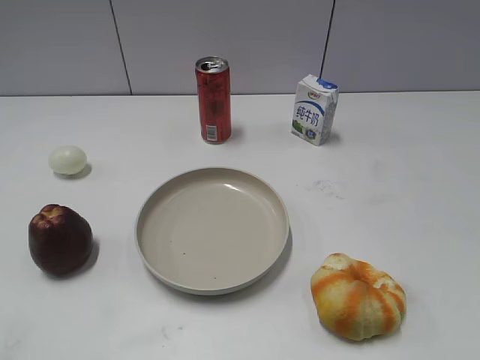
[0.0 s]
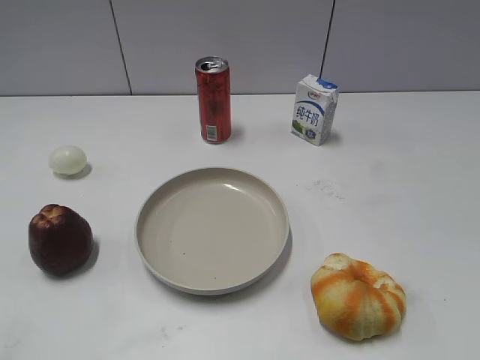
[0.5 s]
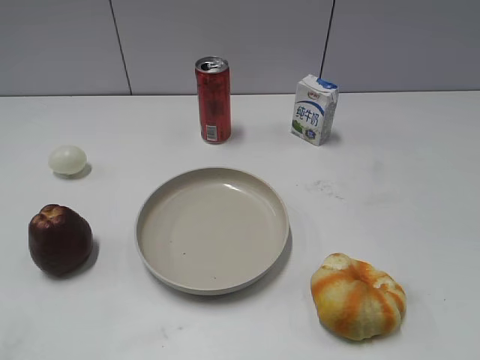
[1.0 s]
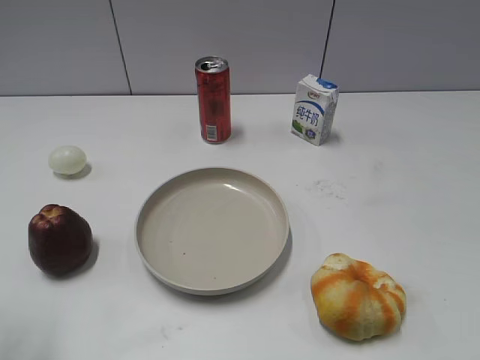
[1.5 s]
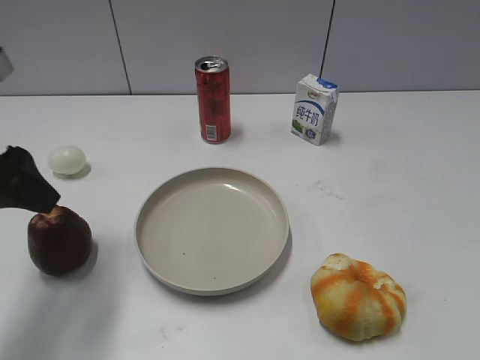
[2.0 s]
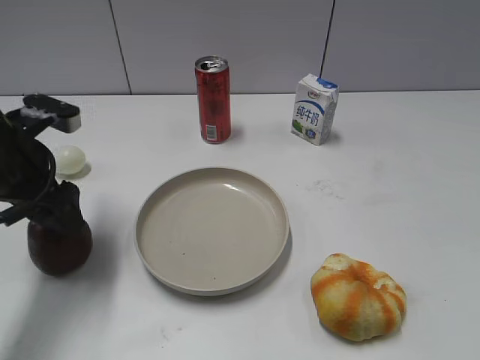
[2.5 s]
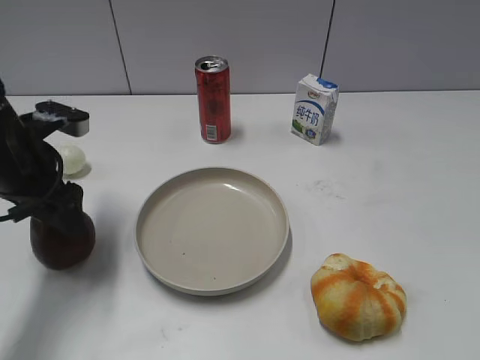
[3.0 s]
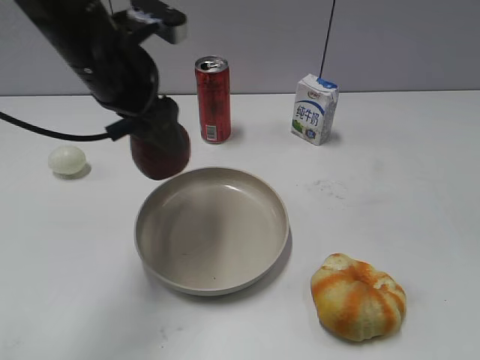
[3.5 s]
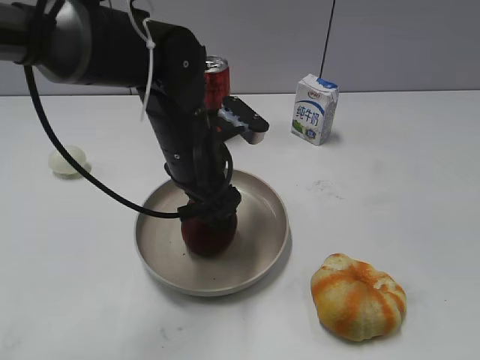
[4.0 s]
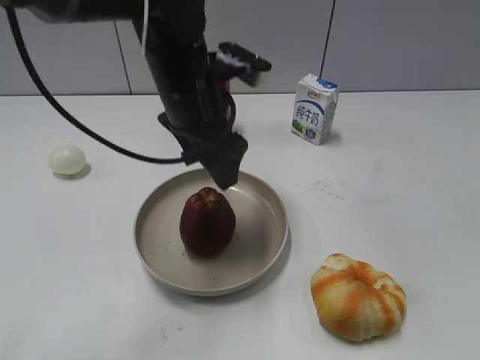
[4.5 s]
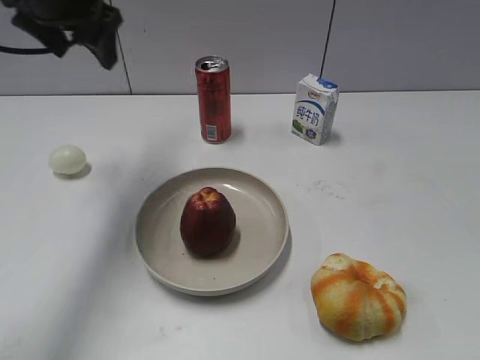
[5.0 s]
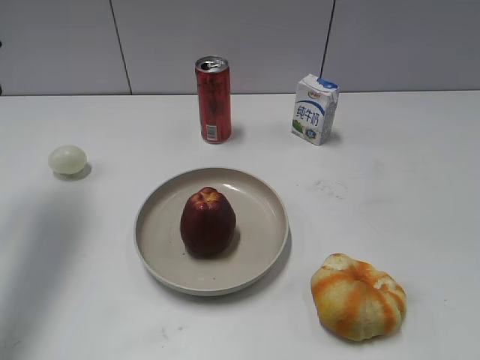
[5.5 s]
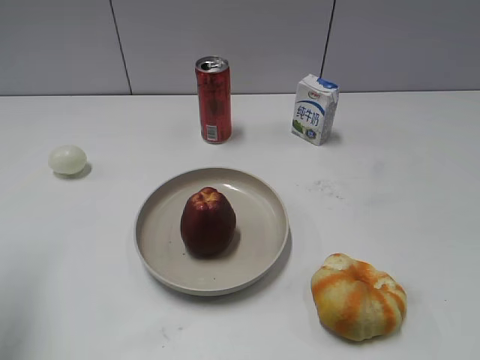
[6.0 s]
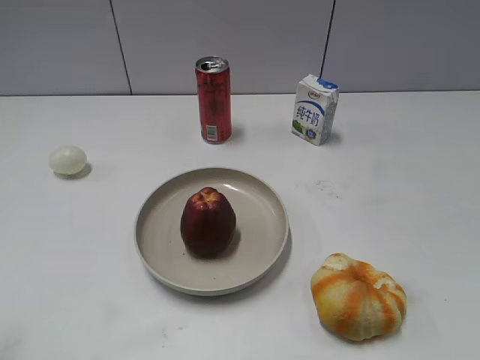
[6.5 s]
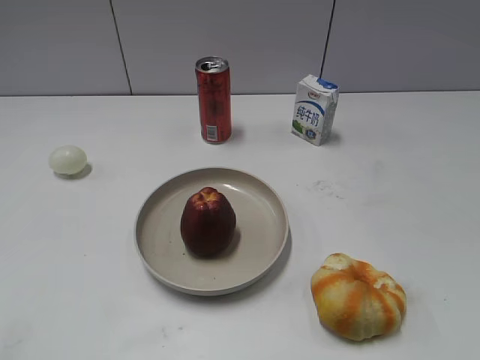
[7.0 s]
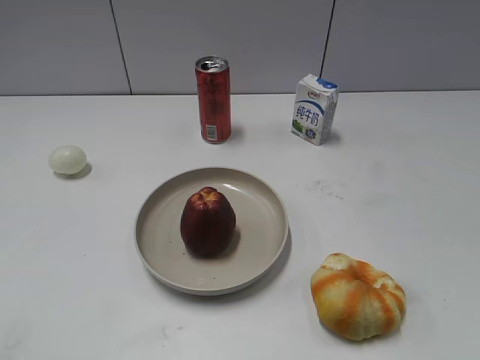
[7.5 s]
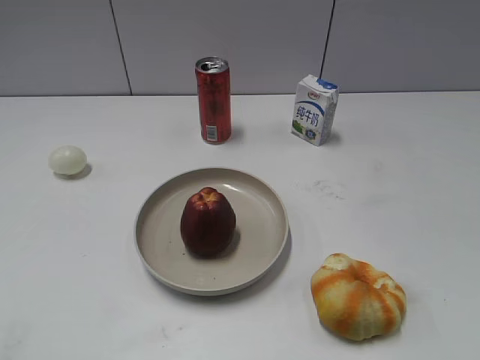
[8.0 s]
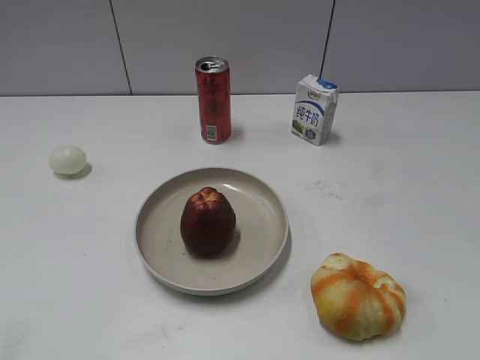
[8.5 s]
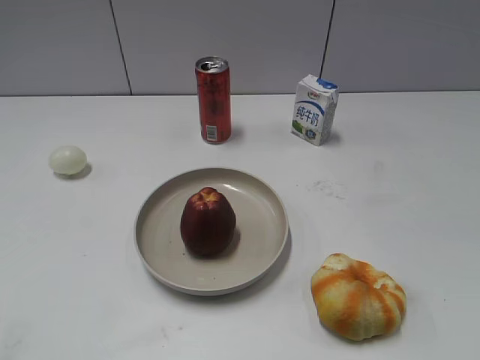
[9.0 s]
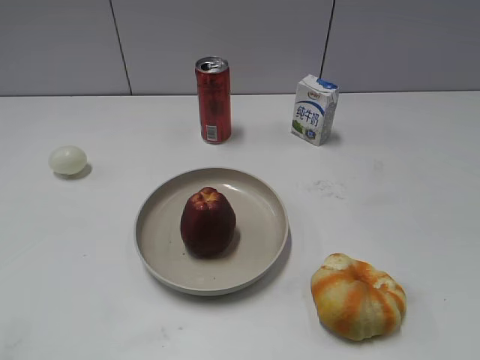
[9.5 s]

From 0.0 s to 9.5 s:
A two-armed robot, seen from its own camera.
Step, from 1.0 s to 2.5 s: Grasp the apple with left gripper.
Step, from 3.0 s to 4.5 s: Place the apple on the plate with left gripper.
From 2.0 s to 4.0 s: The left gripper is displaced to the right, downward and forward by about 25 cm, and closes its fingers.
From 4.0 s to 5.5 s: The left gripper heads to the left and upward, covering approximately 30 cm, and opens, then closes once more.
From 5.5 s to 7.5 s: The left gripper is displaced backward by some 35 cm.
From 7.5 s to 9.5 s: The two grippers keep their place.

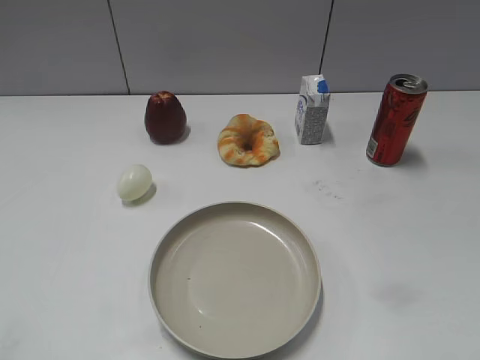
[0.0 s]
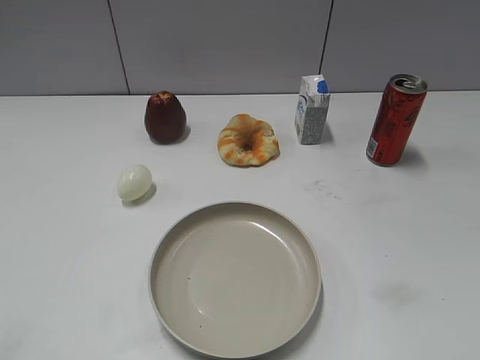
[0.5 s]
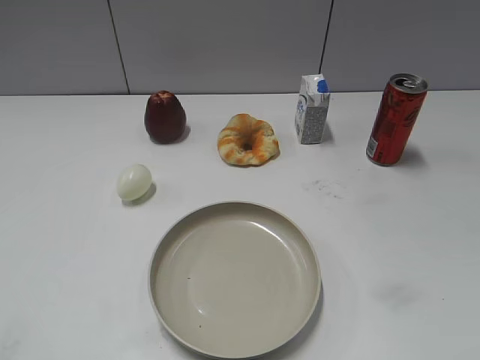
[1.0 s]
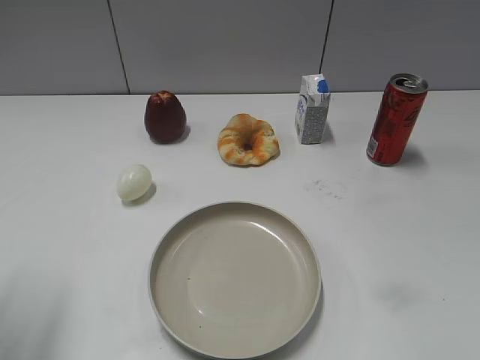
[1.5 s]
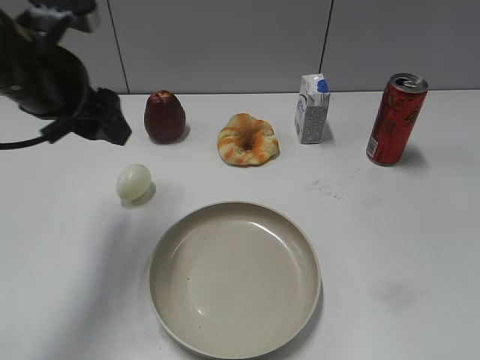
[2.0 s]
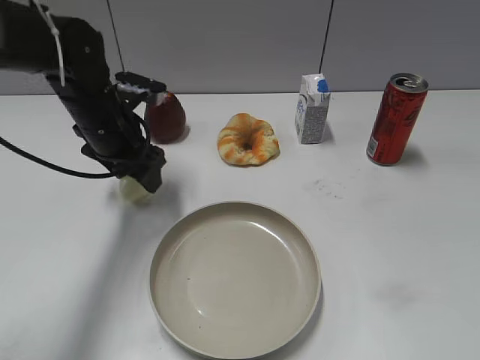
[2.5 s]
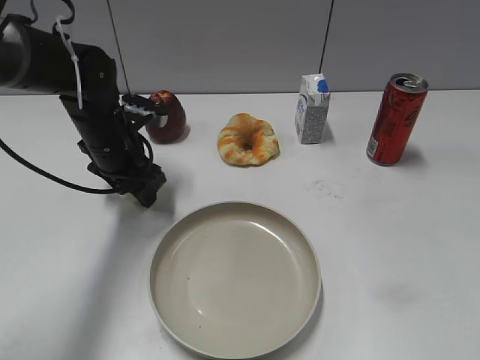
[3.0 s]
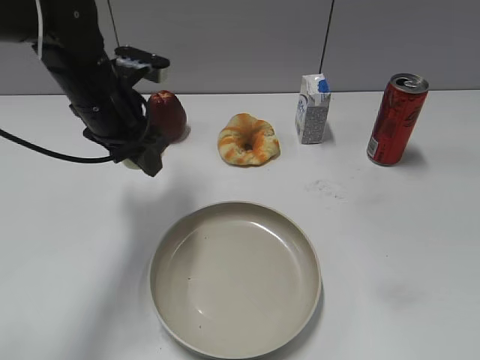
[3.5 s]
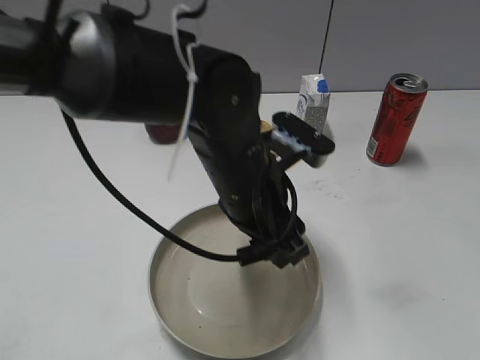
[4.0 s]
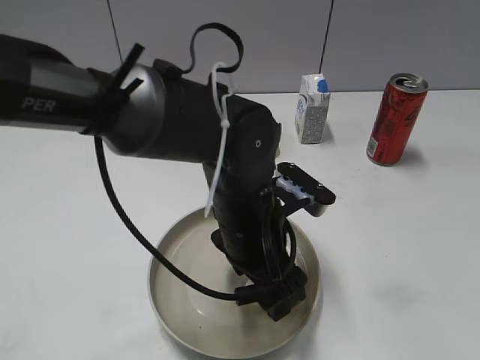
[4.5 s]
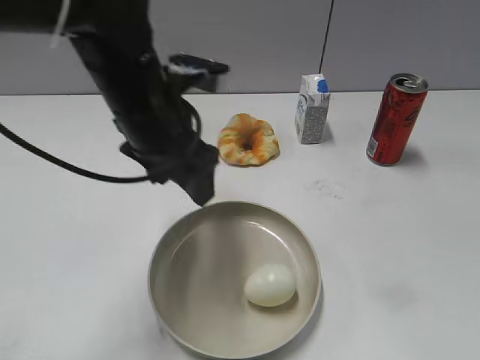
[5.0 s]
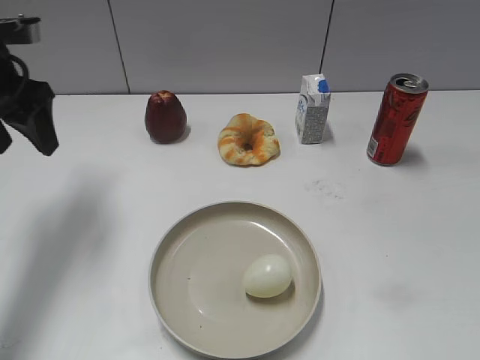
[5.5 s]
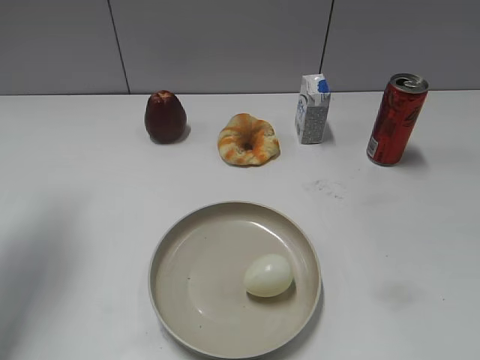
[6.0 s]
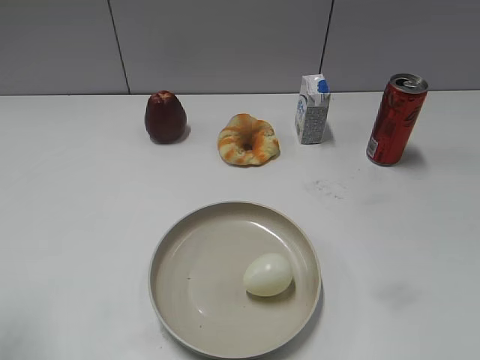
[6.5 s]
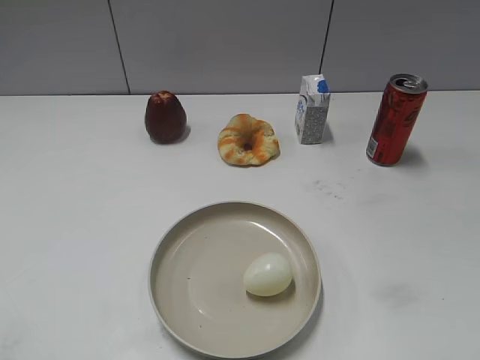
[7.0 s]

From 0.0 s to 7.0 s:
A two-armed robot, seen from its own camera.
Step, from 1.0 s to 3.0 s: Grasp the egg with left gripper.
Step, from 3.5 s to 4.5 s: Place the egg on the plate with left gripper.
From 2.0 s to 3.5 s: The left gripper travels to the right and downward by some 5 cm, and closes up.
From 3.5 s to 5.0 s: The left gripper is displaced backward by approximately 5 cm, reaches some 15 cm to the right, then returns, and opens up.
From 5.0 s to 7.0 s: The left gripper heads backward and to the left, covering approximately 35 cm.

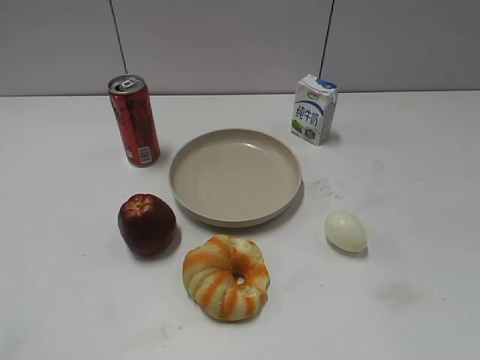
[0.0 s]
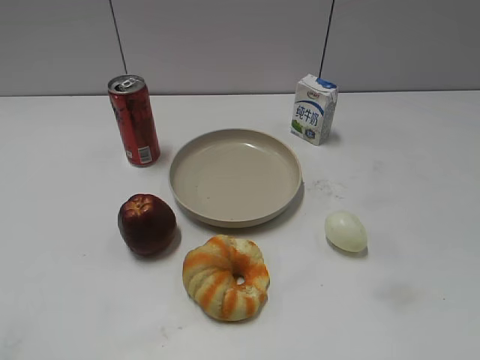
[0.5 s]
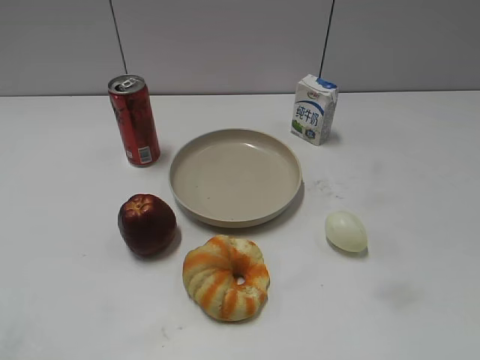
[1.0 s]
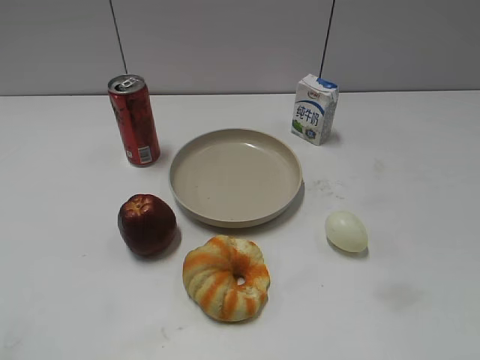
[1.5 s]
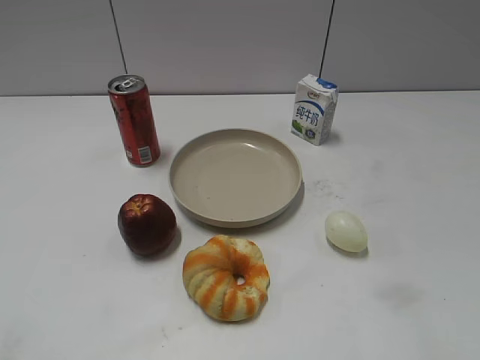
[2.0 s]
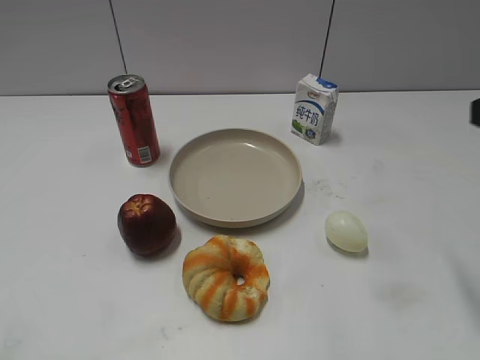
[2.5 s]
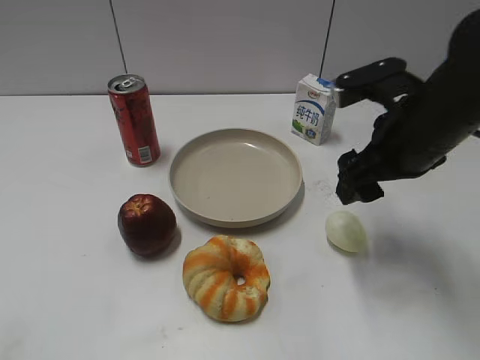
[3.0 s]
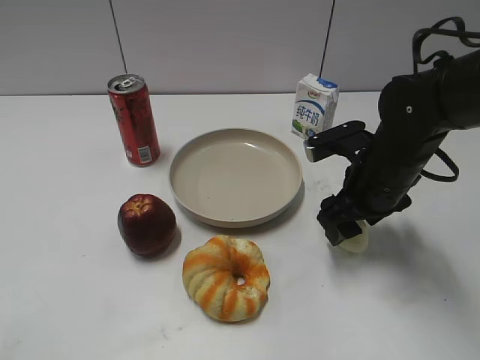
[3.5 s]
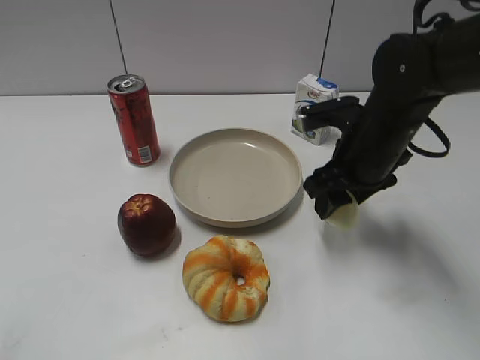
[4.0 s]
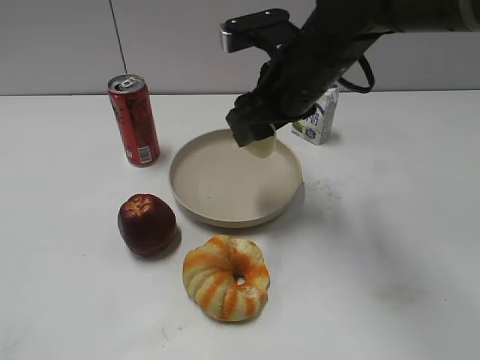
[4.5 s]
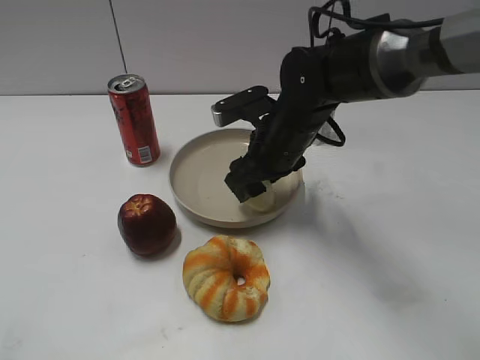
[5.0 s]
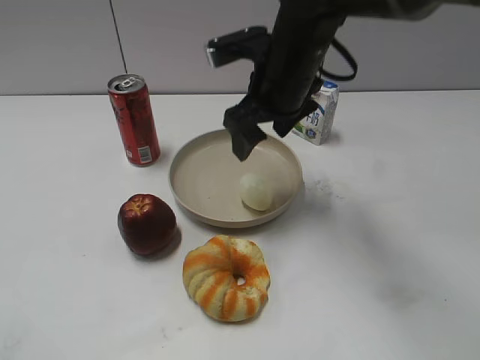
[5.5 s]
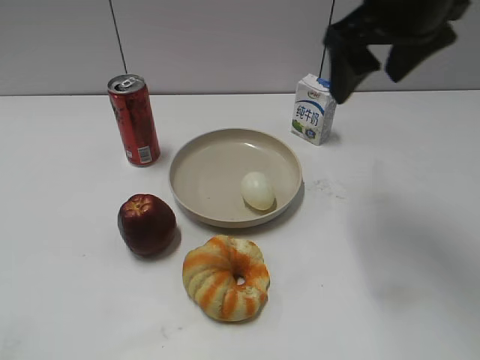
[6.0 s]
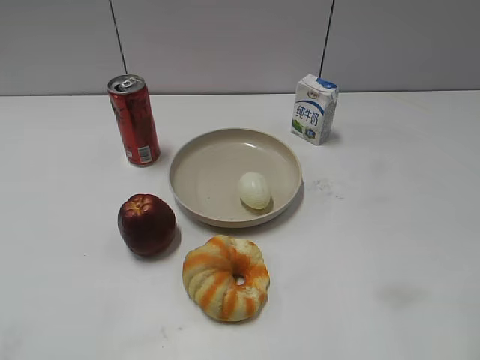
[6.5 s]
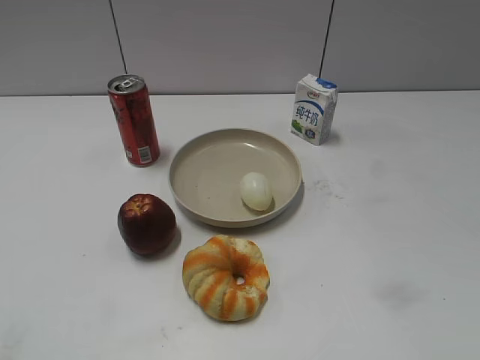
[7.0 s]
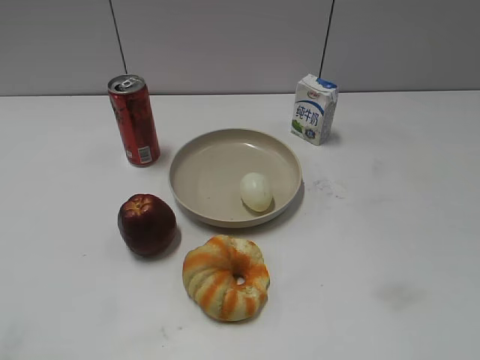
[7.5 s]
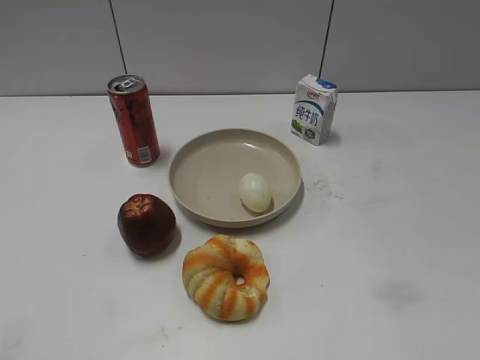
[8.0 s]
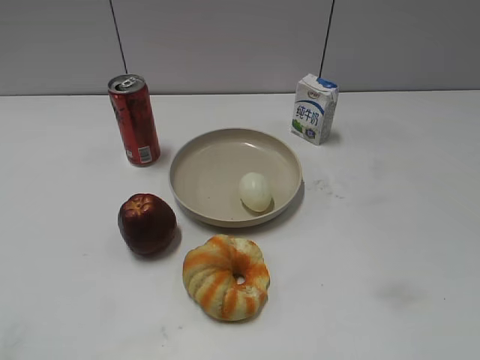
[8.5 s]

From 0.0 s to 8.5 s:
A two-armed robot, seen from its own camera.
Step, from 2.0 s to 3.5 s: Grasp the egg with right gripper.
Step, from 4.0 s to 5.0 s: Place the egg on the plate with right gripper.
From 2.0 s to 4.0 s: The right gripper is displaced forward, downward and to the left by roughly 35 cm, and closes its fingers.
From 4.0 s to 6.5 s: The right gripper moves up and down over roughly 20 cm, changing direction 2 times, and opens.
